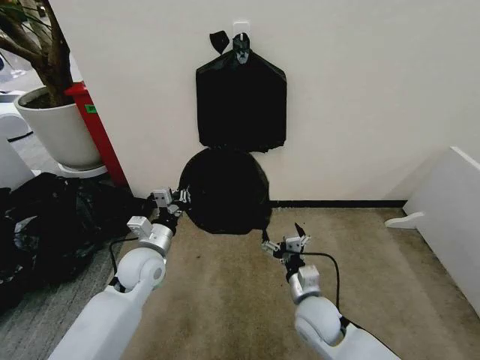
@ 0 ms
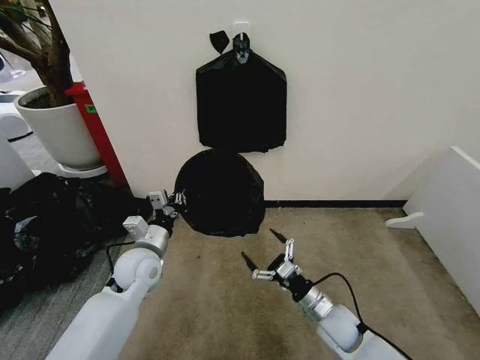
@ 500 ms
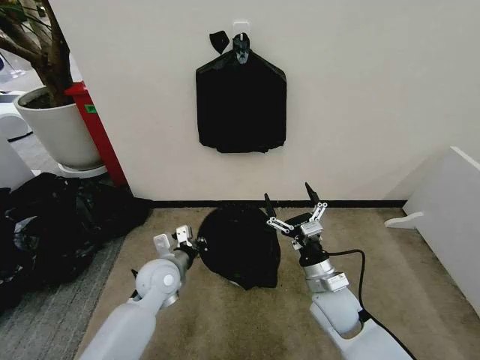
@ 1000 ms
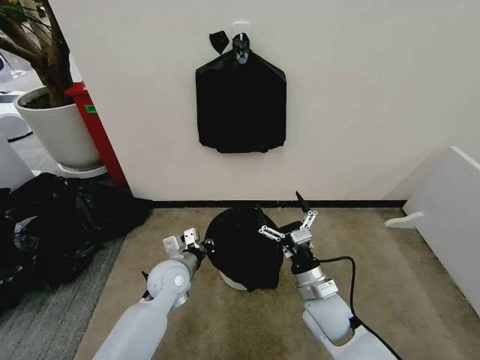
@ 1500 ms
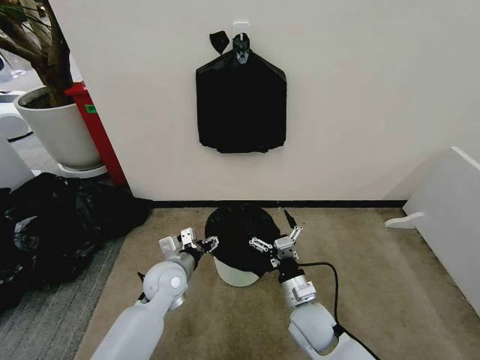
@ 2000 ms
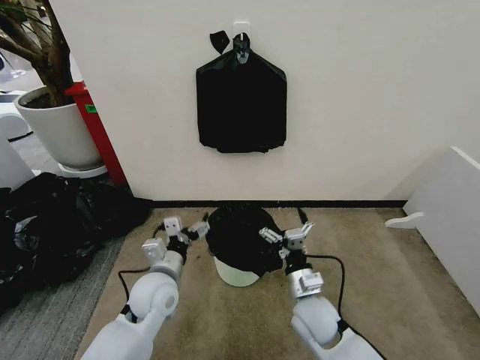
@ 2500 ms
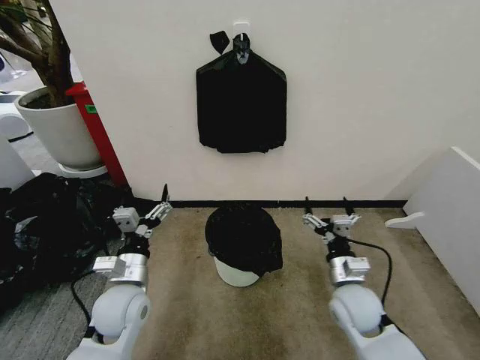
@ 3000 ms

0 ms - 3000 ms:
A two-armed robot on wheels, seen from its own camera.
Task of the whole recording: Place the garbage bag over the trash bin.
0 ms - 1500 ms: The right gripper travels downward and back again, roughly 5 cm each way, while the left gripper shifts approximately 5 cm to the right.
1500 ms - 3000 ms: The left gripper shifts some 10 cm backward and to the left, and opens up. Meanwhile the right gripper is displaced to the right by roughly 5 cm.

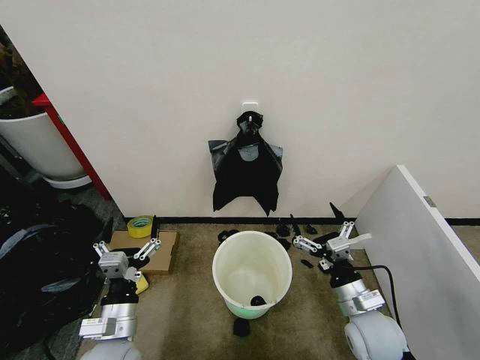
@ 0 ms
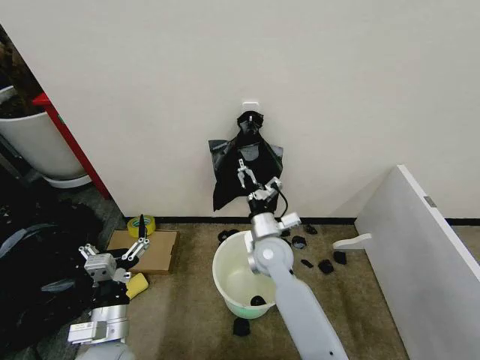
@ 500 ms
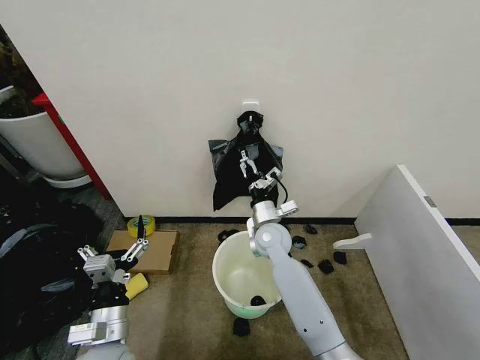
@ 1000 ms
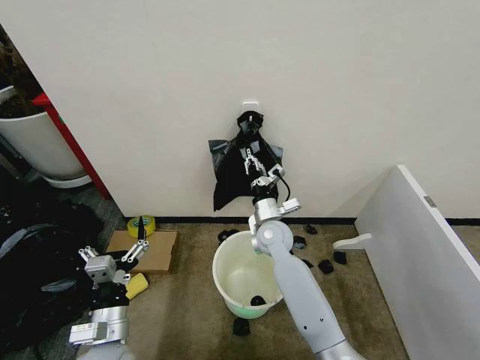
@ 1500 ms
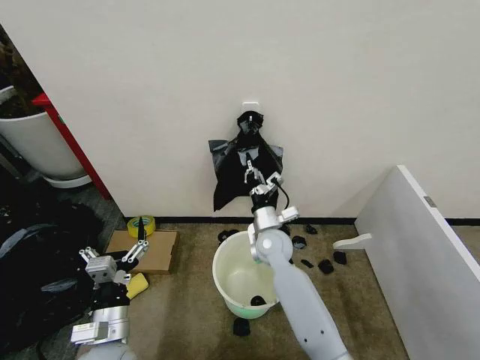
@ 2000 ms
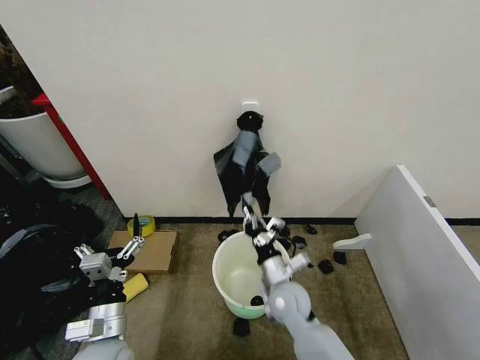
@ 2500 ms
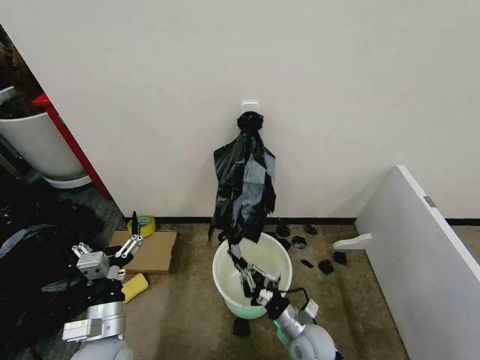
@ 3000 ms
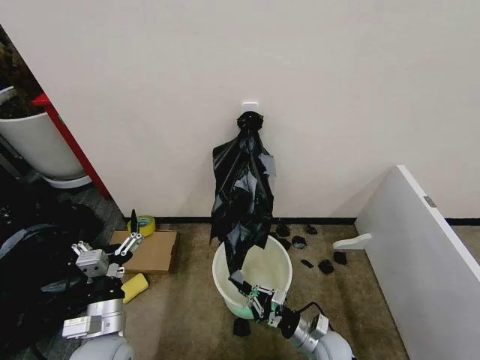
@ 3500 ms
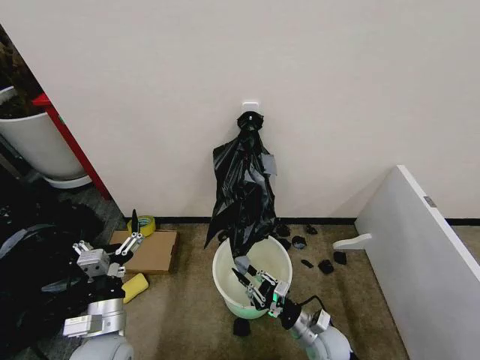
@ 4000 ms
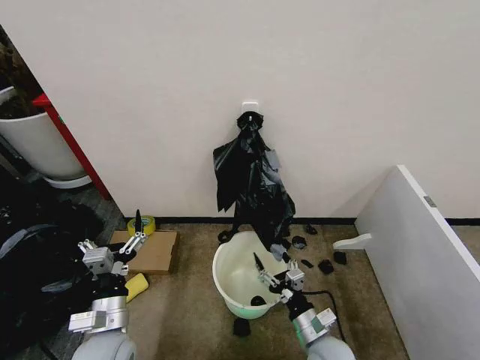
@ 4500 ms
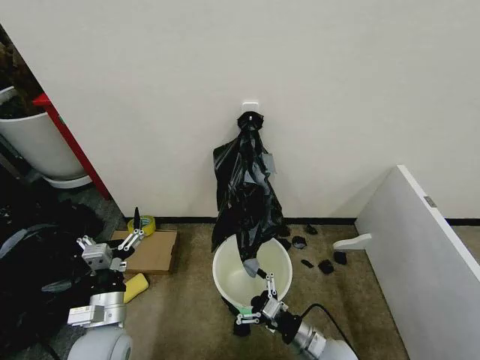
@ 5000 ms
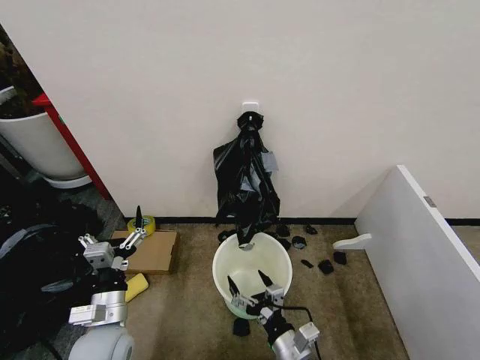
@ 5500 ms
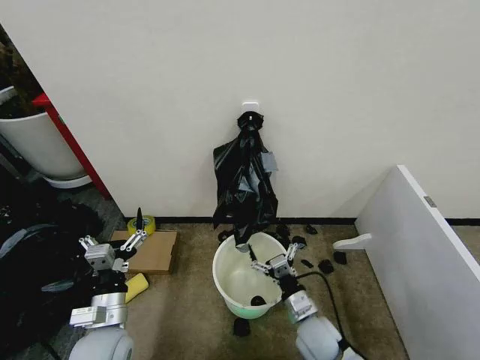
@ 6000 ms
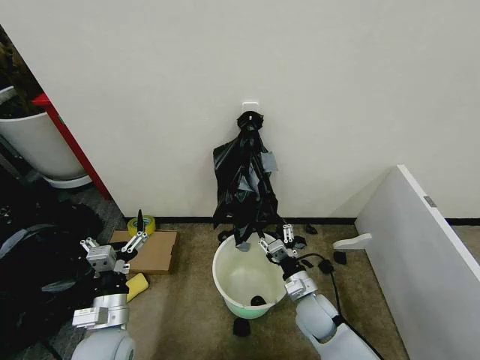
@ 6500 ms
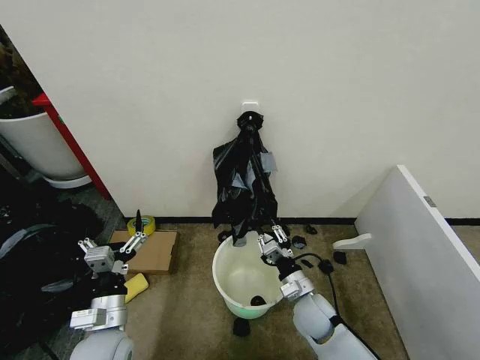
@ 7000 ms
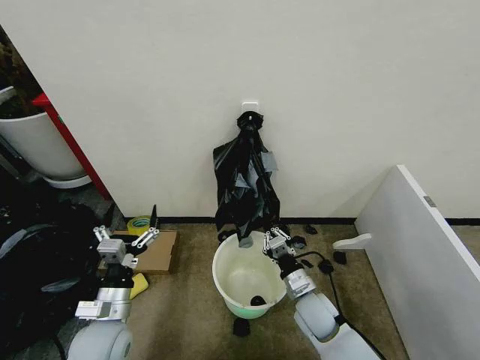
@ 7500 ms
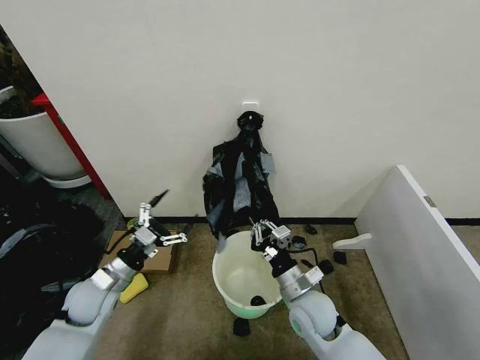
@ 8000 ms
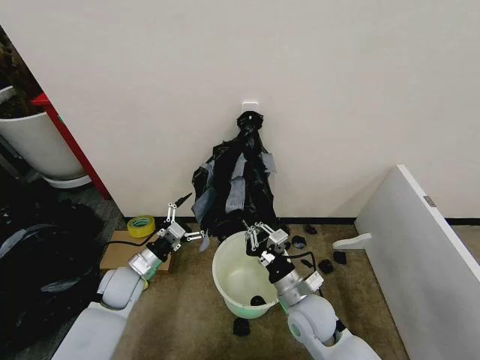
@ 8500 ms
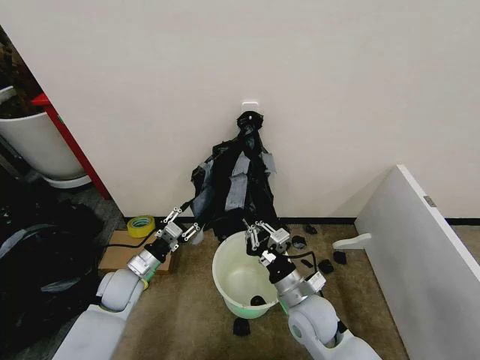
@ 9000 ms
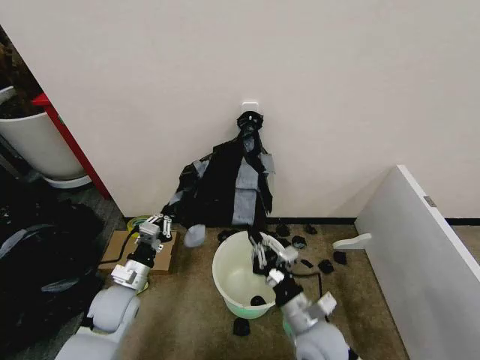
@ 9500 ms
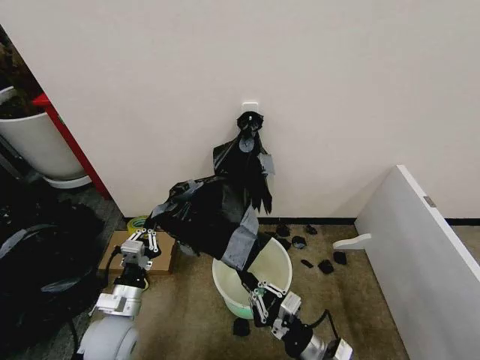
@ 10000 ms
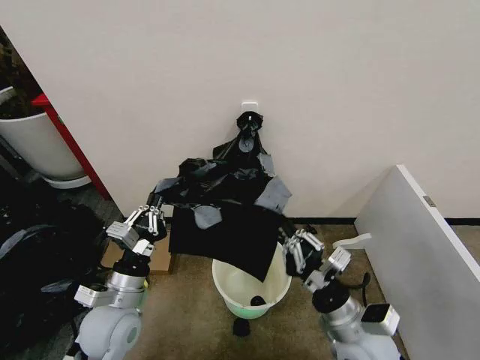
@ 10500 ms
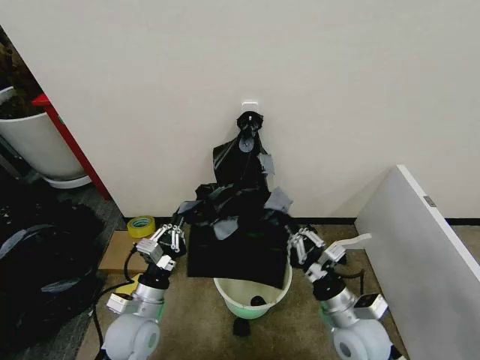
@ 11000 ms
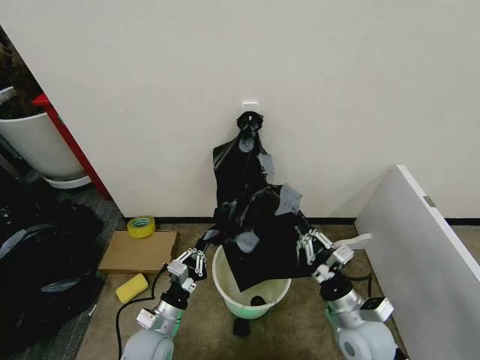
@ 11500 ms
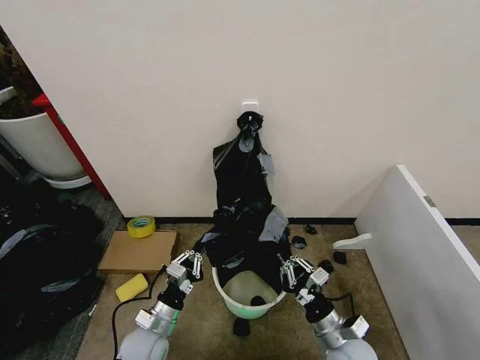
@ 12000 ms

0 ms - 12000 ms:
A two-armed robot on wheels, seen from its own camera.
Task of the whole recording: Place the garbage bag over the trash bin.
2000 ms - 4000 ms: The right gripper shifts about 25 cm backward, downward and to the right.
4000 ms - 6000 ms: The right gripper goes about 5 cm upward, reaches about 10 cm backward, then returns, and opens up.
6000 ms - 8000 ms: The left gripper moves forward and to the left, some 15 cm, while the right gripper goes about 5 cm upward, and closes its fingers.
8000 ms - 10000 ms: The left gripper moves backward and to the right, about 10 cm, and closes, while the right gripper heads backward, covering some 10 cm.
10000 ms - 12000 ms: The right gripper travels upward and back again, some 10 cm each way, while the left gripper shifts approximately 10 cm downward.

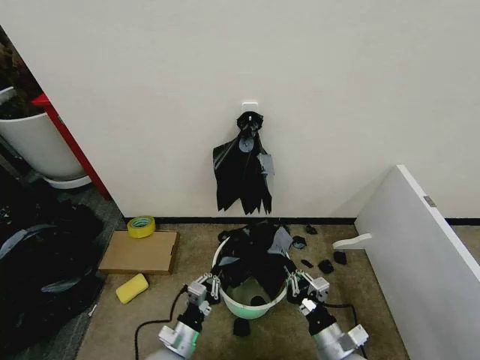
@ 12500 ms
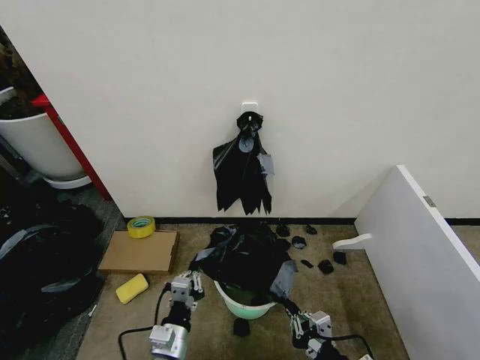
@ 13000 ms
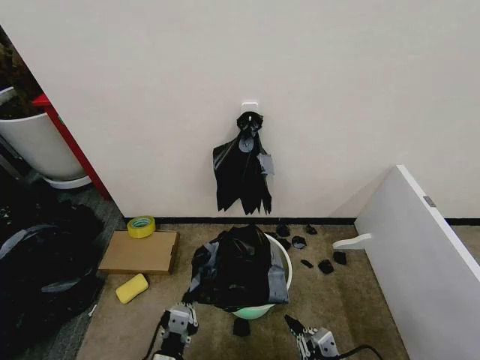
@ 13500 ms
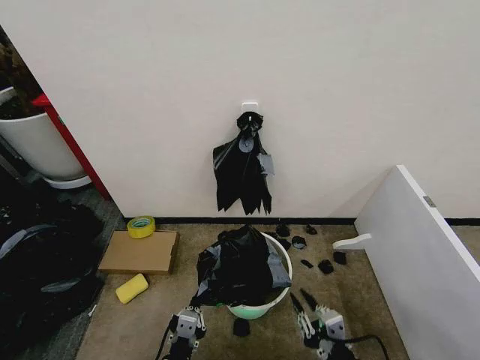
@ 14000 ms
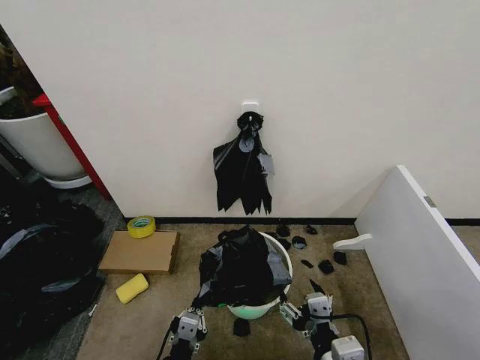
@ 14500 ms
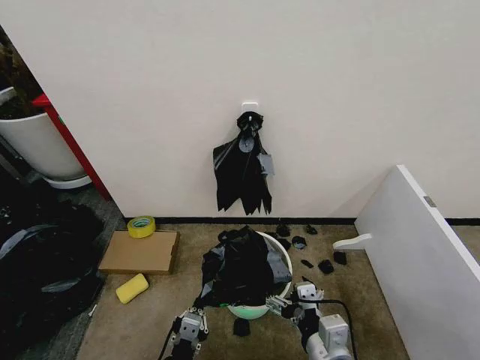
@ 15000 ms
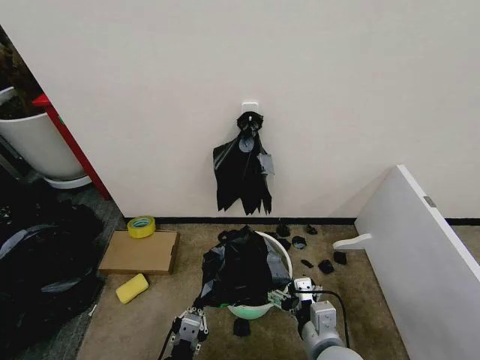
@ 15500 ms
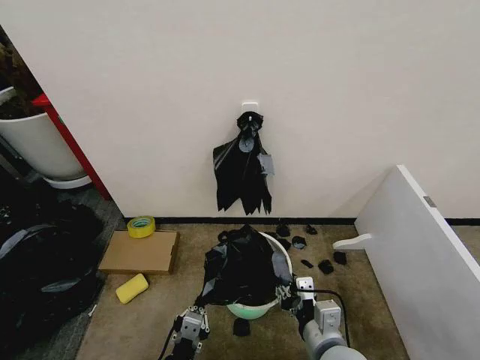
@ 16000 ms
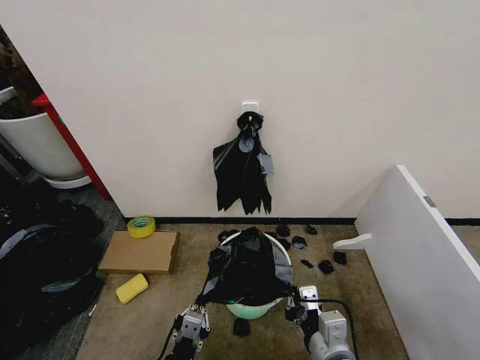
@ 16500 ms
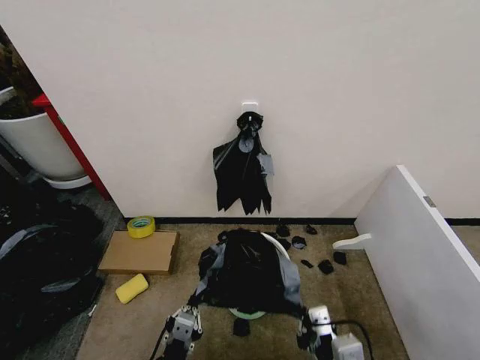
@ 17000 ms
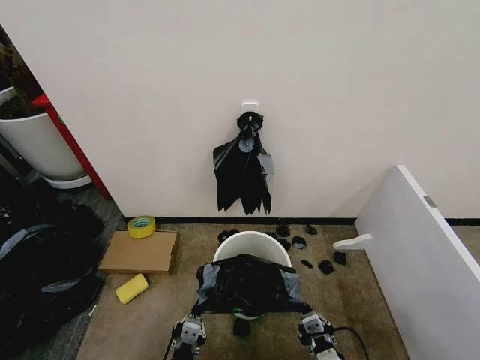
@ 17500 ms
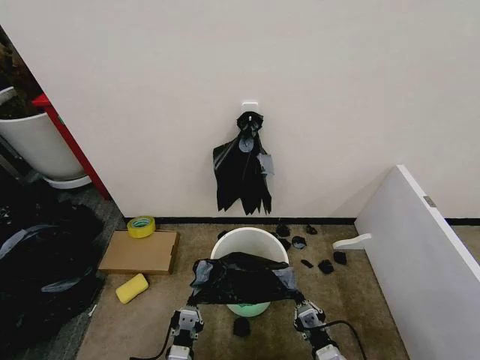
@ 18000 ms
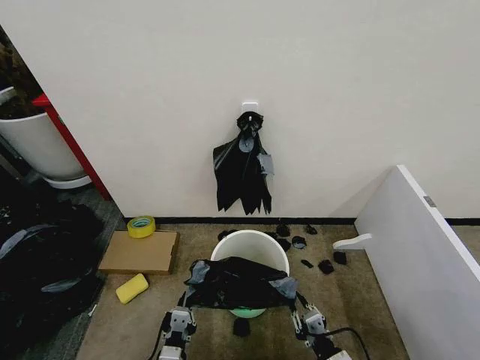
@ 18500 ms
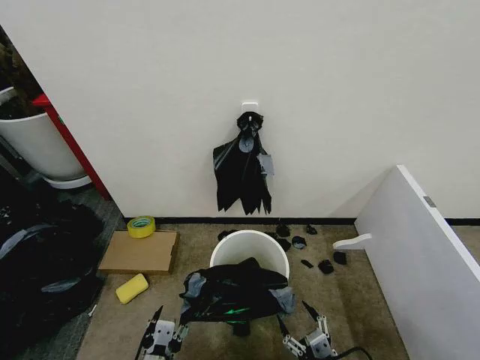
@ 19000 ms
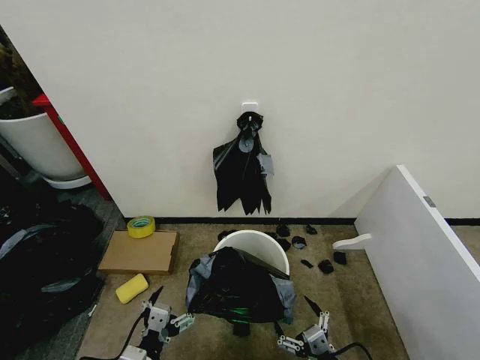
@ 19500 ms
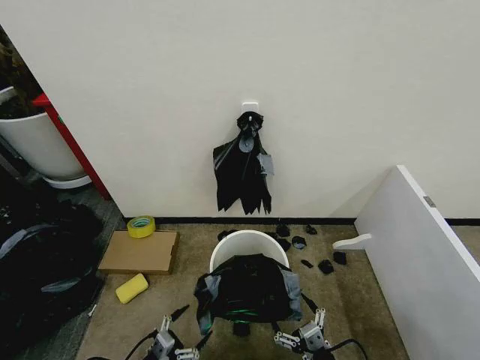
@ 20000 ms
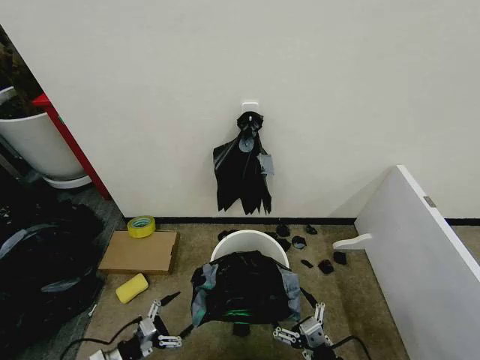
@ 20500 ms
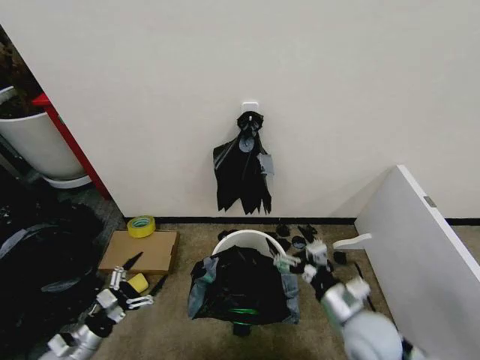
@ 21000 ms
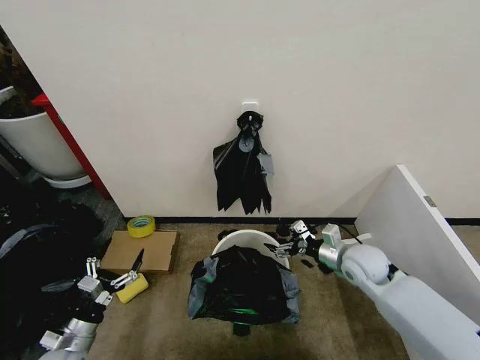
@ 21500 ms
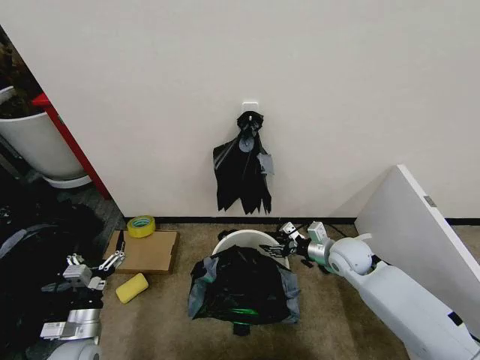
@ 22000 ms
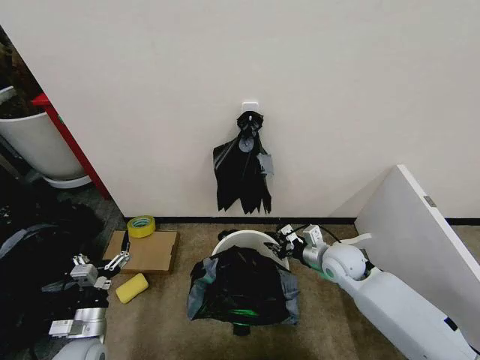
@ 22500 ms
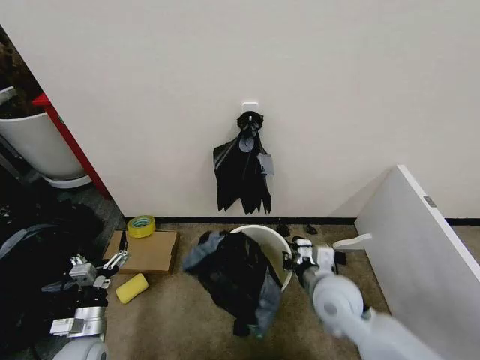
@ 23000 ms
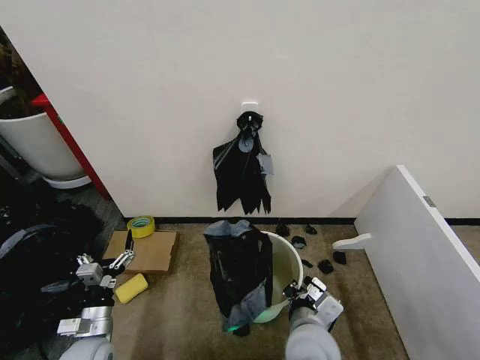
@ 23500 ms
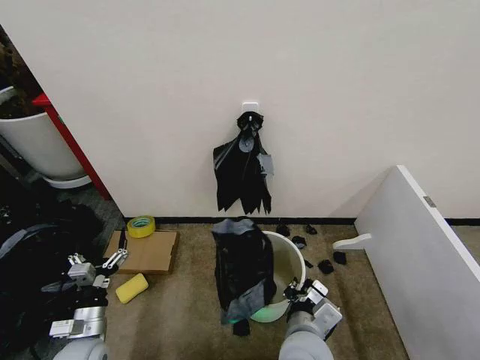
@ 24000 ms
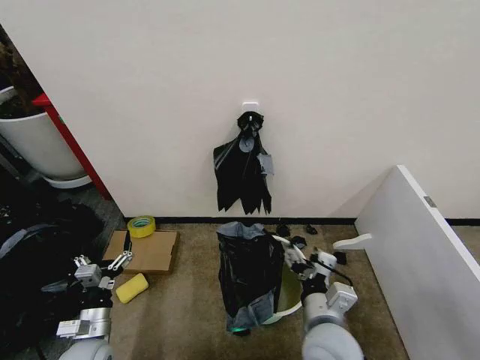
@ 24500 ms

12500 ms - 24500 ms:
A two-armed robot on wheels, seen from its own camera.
Task of the whole recording: Place the garbage bag over the trash bin.
12500 ms - 14500 ms: The right gripper goes some 15 cm upward and backward, and opens, while the left gripper goes some 10 cm backward and upward.
14500 ms - 16500 ms: The right gripper closes its fingers.
16500 ms - 18500 ms: The right gripper heads downward and to the right, covering roughly 15 cm.
18500 ms - 20500 ms: The right gripper opens its fingers. Meanwhile the left gripper is displaced to the left by approximately 20 cm, and opens.
20500 ms - 22500 ms: The left gripper is displaced upward by approximately 10 cm. Meanwhile the right gripper is displaced forward by roughly 30 cm, and closes.
22500 ms - 24500 ms: The right gripper shifts approximately 20 cm backward and to the left, and opens up.
